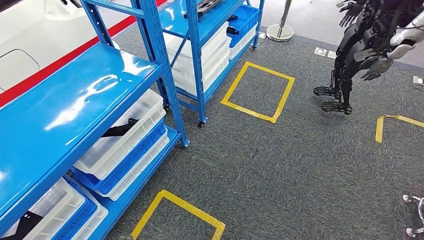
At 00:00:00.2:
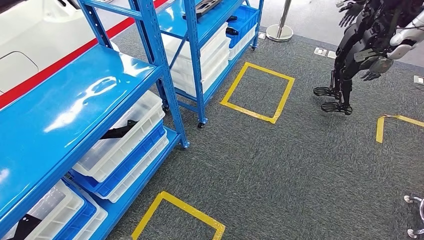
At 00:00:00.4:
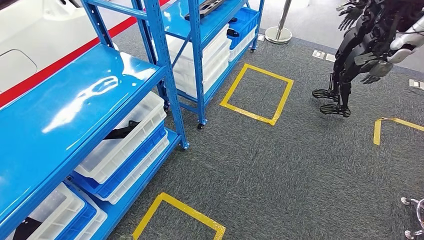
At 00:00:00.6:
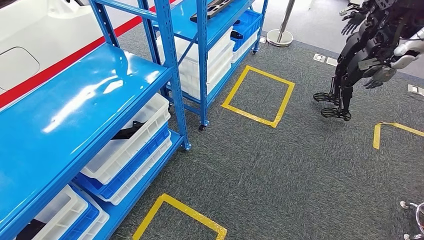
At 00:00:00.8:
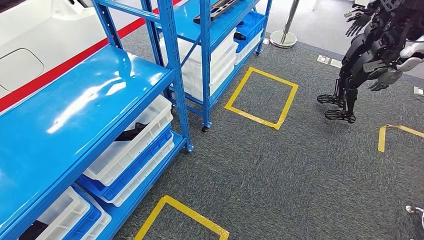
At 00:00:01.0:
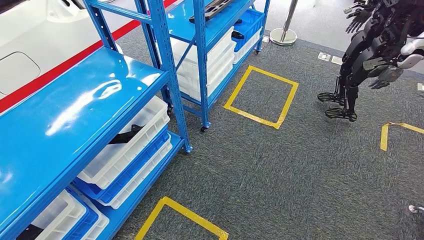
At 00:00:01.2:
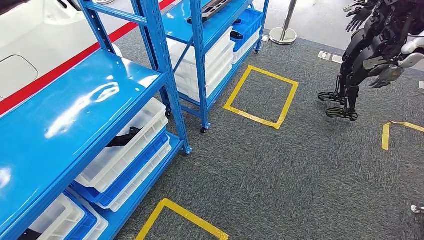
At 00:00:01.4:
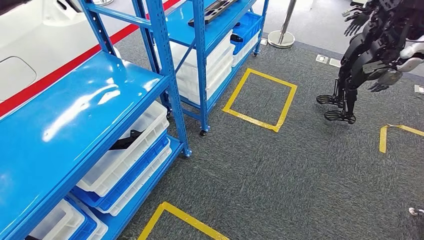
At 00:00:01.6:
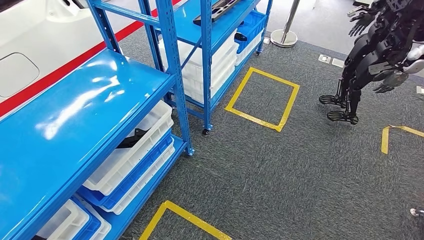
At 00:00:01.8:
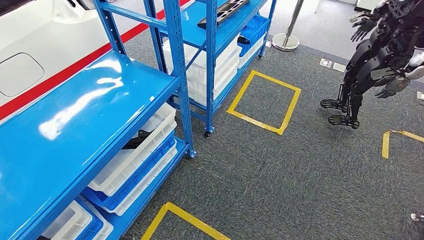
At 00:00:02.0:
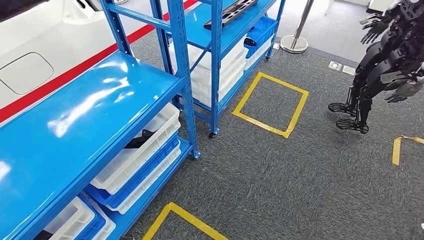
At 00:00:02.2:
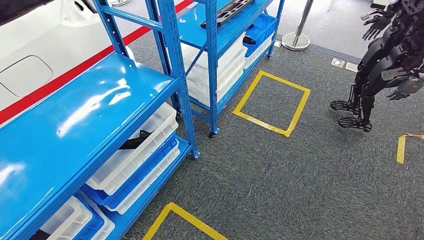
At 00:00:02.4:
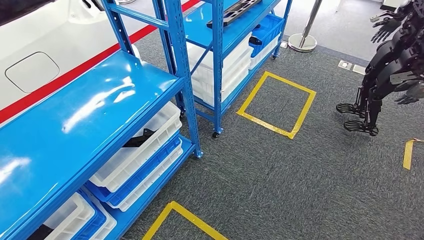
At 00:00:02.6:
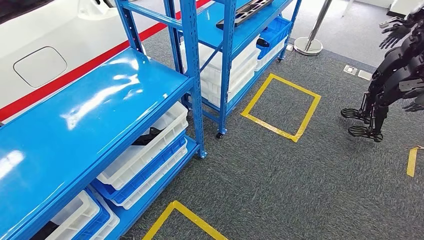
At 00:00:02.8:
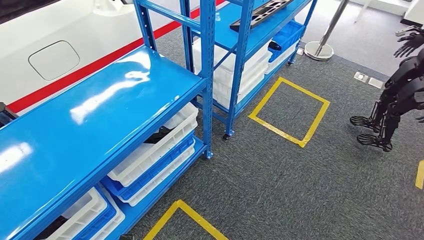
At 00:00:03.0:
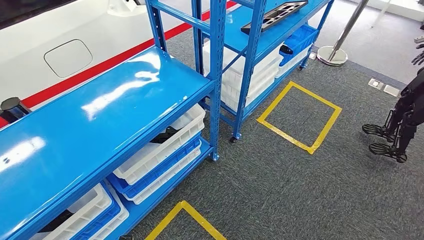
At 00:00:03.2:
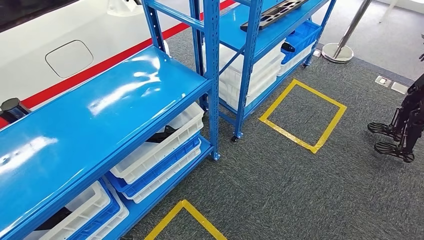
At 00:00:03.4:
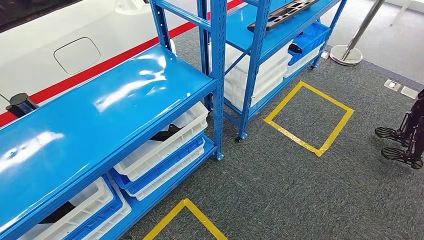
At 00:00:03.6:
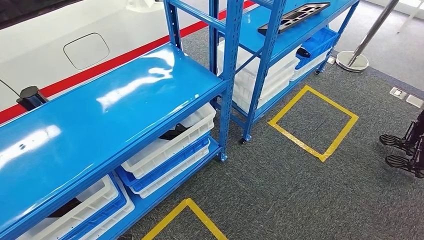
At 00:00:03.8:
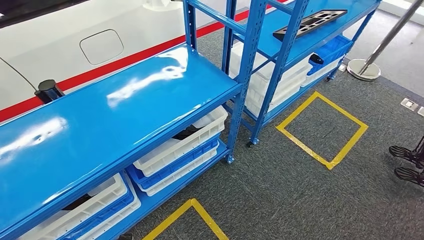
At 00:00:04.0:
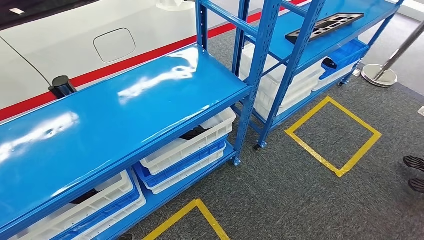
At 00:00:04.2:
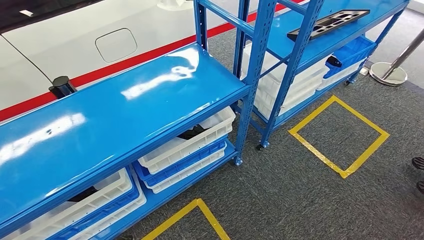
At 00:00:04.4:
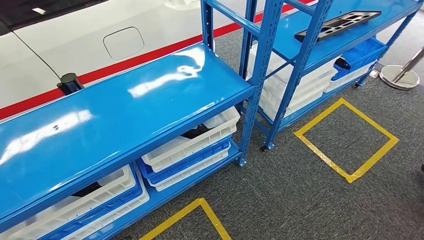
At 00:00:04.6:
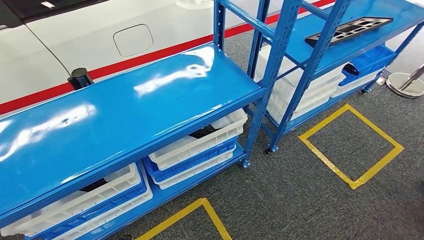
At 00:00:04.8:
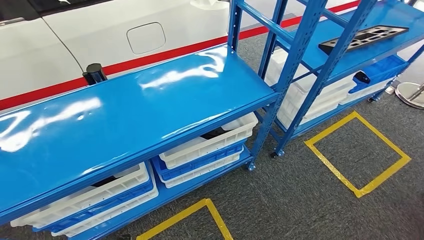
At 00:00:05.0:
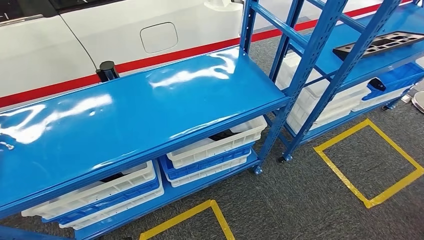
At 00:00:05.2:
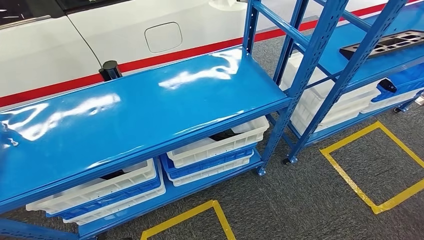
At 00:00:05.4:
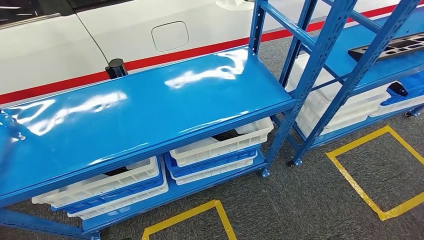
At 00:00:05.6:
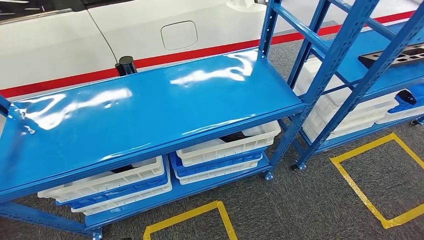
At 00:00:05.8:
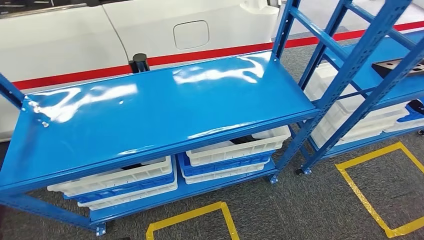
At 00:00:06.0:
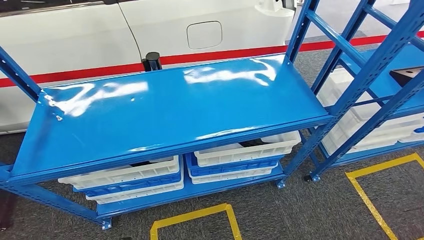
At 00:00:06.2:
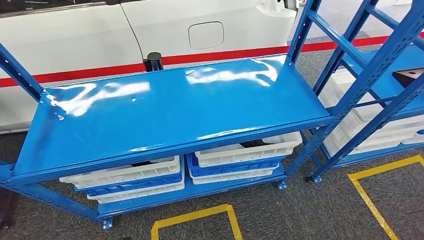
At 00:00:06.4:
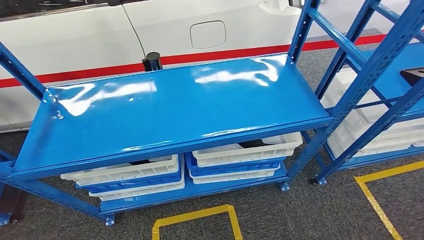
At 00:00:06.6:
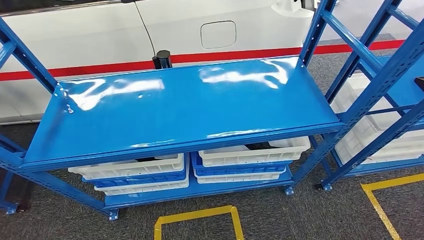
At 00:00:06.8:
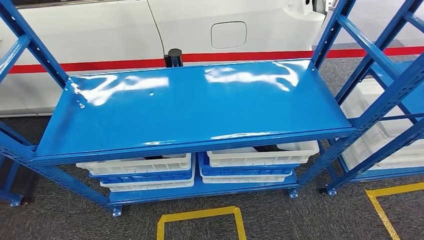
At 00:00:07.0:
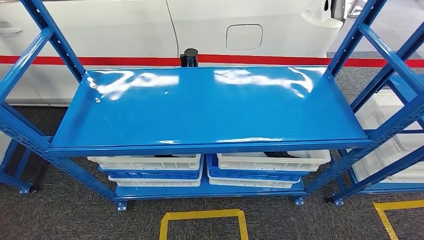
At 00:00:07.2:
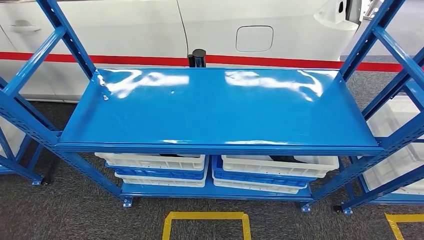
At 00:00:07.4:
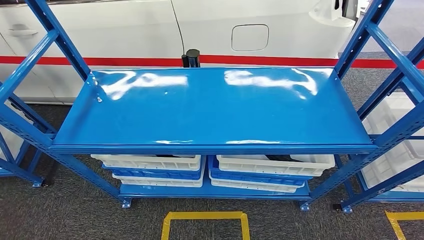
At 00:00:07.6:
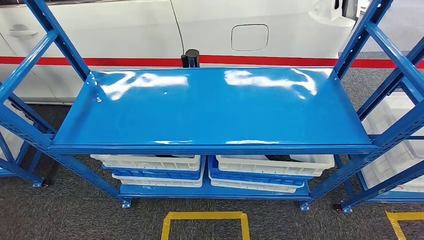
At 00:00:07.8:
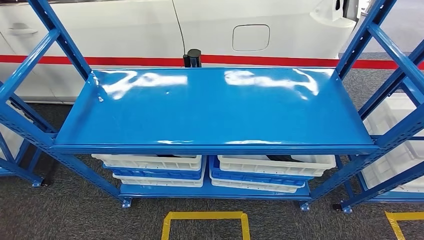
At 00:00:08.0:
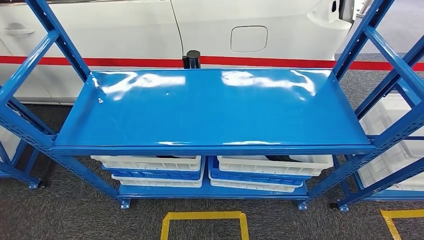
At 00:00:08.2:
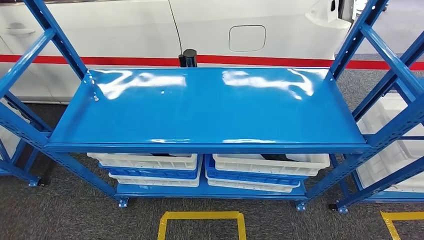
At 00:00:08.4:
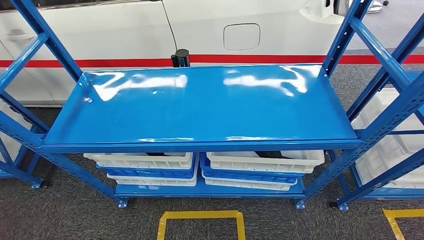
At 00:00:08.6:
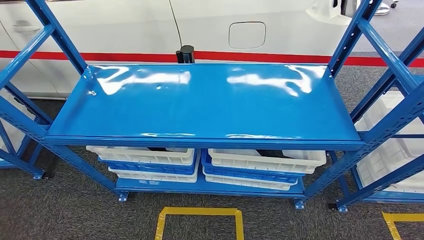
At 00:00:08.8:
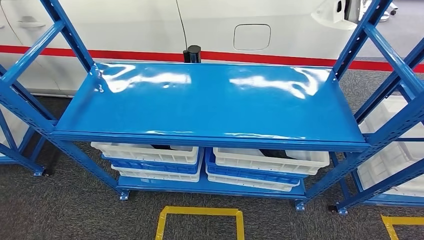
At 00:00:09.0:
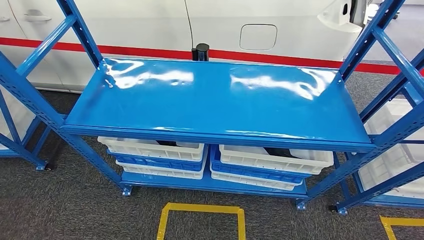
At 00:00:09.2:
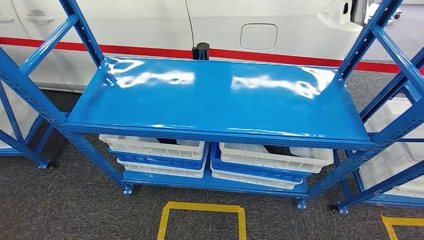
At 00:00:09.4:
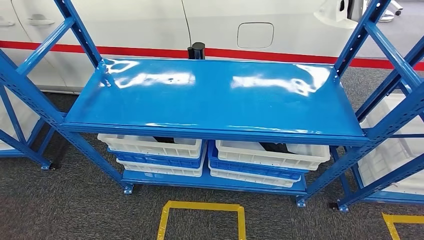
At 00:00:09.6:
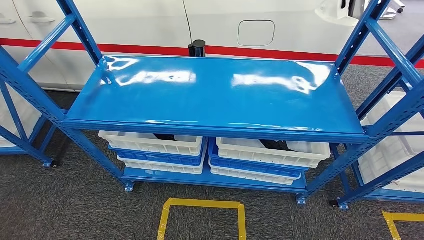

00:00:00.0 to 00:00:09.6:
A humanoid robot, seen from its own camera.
Step, 00:00:00.0 to 00:00:09.6: Move to the initial position of the shelf.
